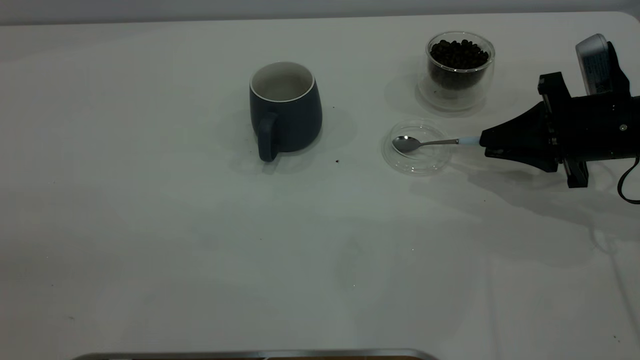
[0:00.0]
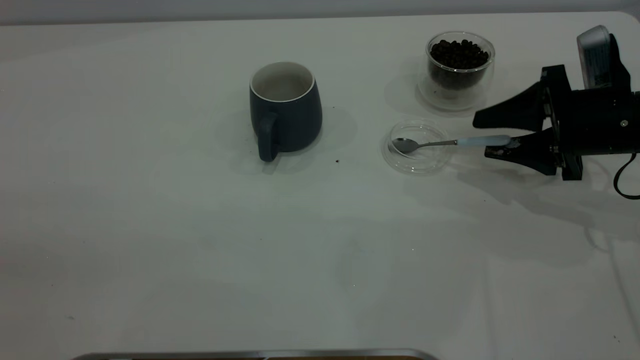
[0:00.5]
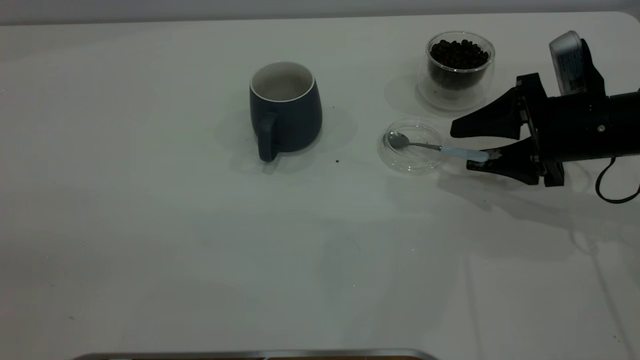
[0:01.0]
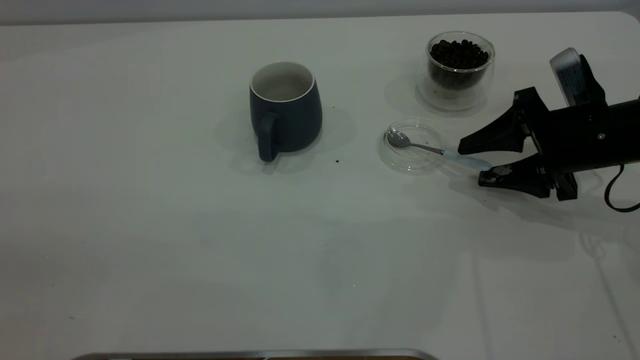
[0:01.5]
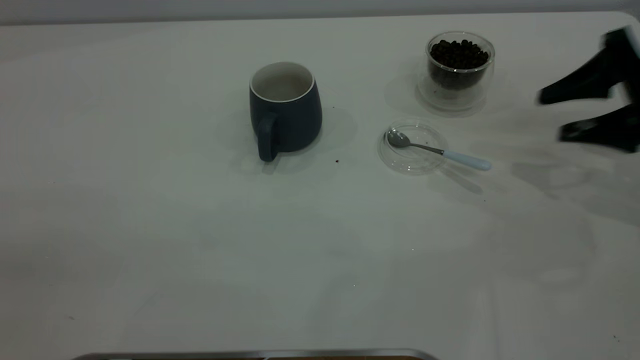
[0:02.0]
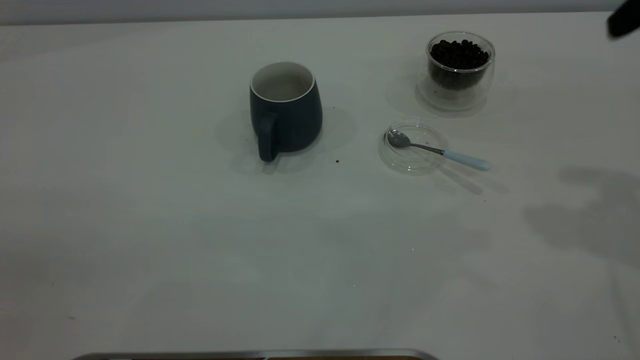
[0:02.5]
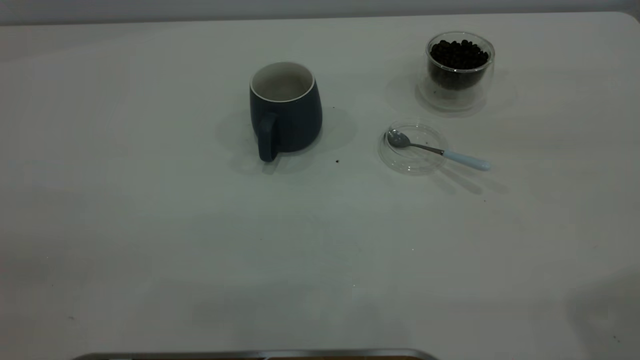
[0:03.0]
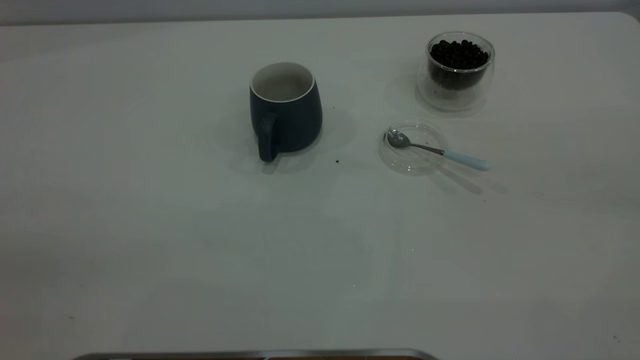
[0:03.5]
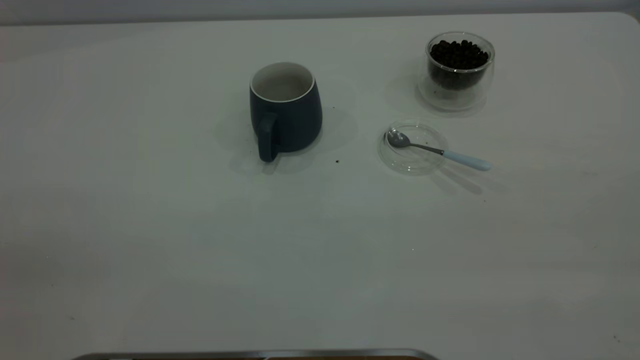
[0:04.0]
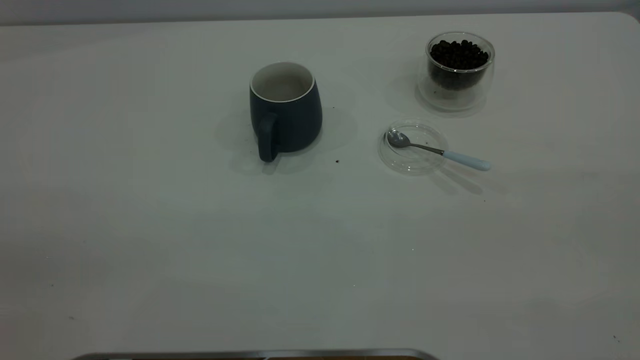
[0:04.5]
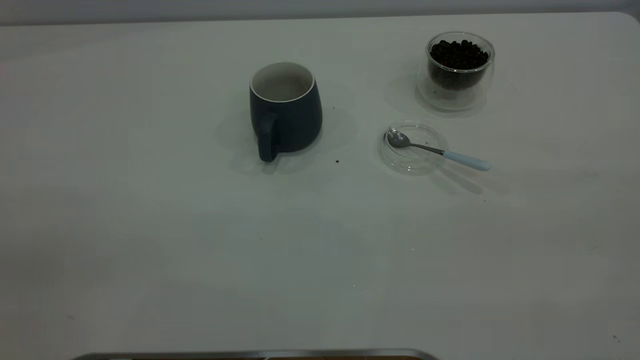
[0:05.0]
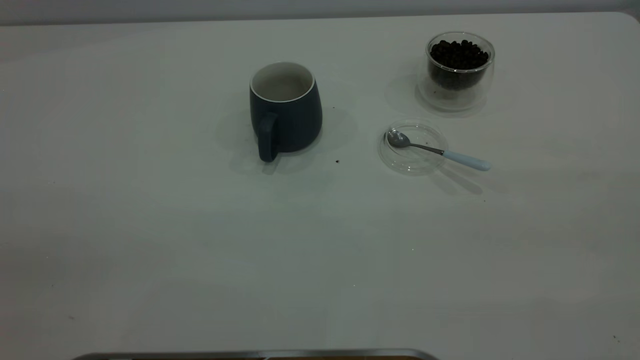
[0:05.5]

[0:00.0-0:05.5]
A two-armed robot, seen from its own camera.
Task of the whole recording: the left gripper place the grey cup in the center of the table, the right gripper take the blue spoon from the cup lid and scoop out the coffee beans from the coffee cup and put them into the grey cup, the right gripper put the spoon back into the cup lid.
0:00.0 to 0:02.0: The right gripper shifts approximately 10 cm upward and to the right, and opens its fingers.
0:02.0 to 0:03.5: The right gripper moves backward and upward, about 40 cm.
